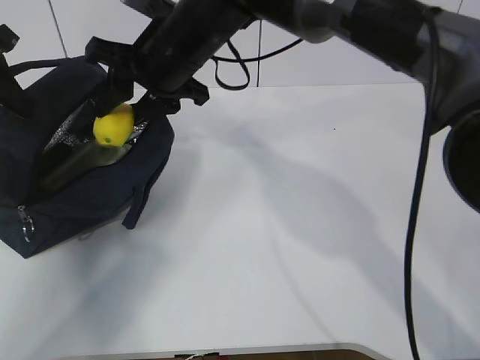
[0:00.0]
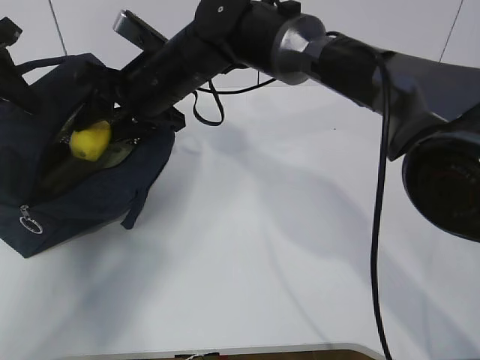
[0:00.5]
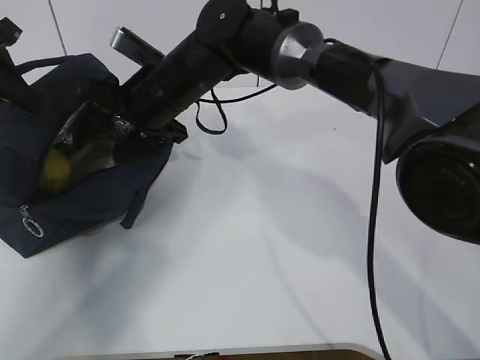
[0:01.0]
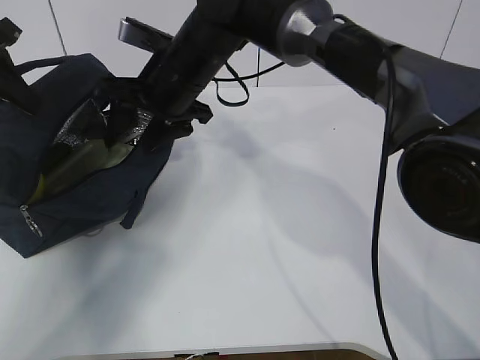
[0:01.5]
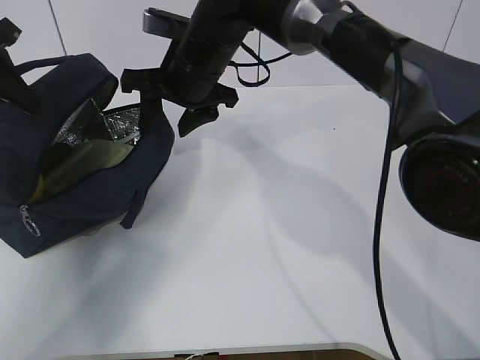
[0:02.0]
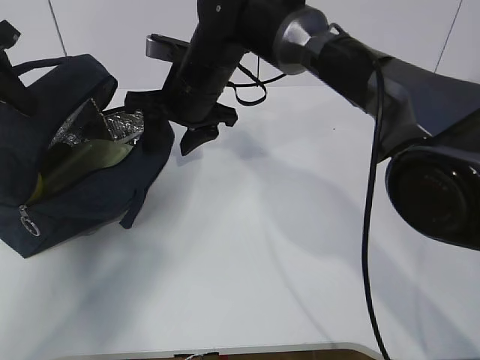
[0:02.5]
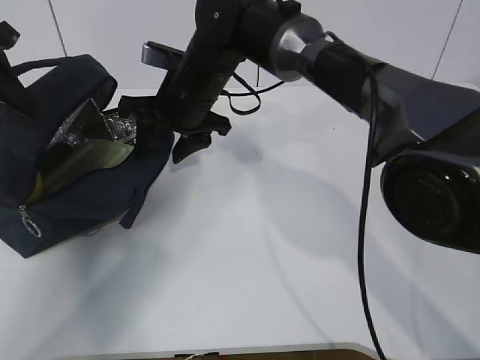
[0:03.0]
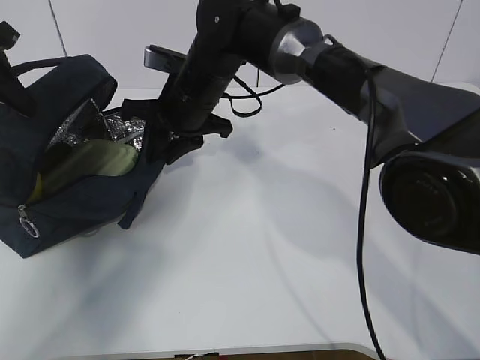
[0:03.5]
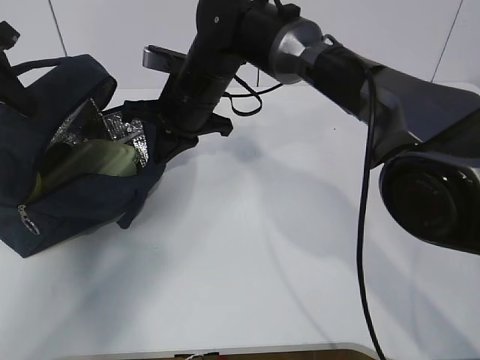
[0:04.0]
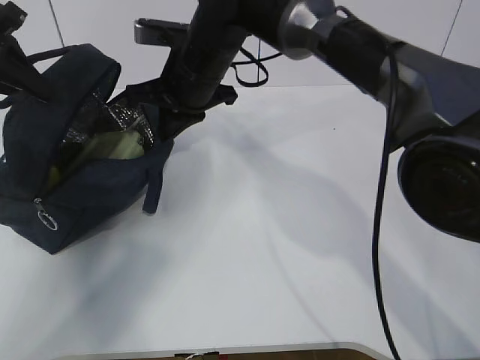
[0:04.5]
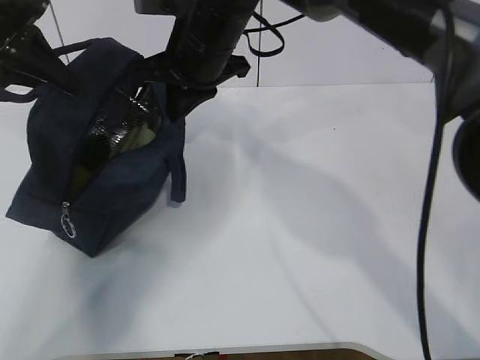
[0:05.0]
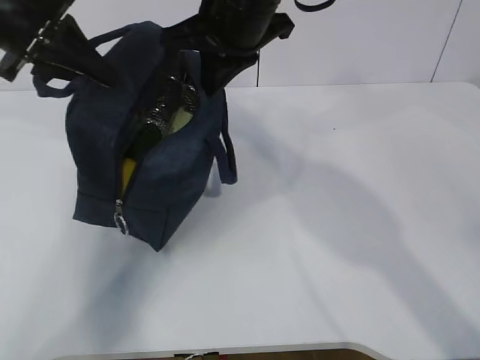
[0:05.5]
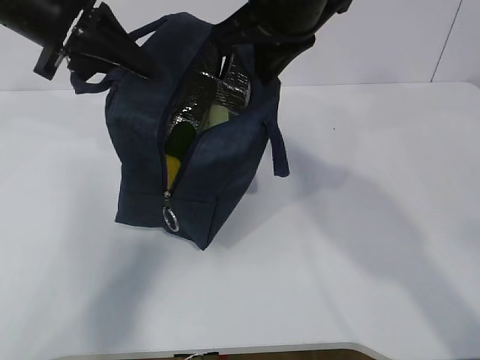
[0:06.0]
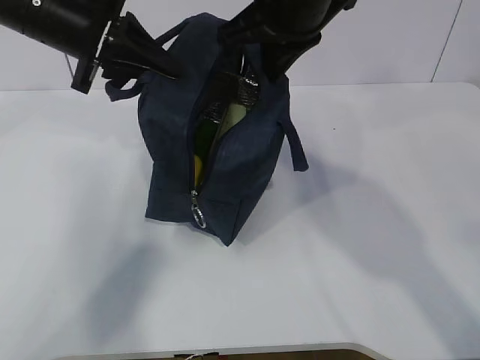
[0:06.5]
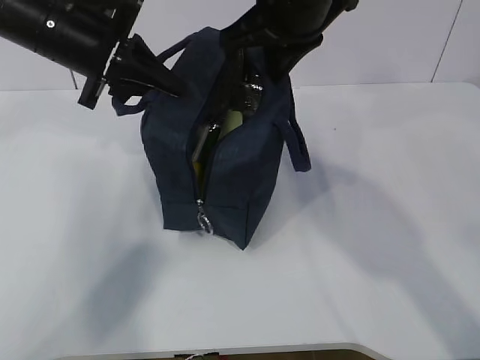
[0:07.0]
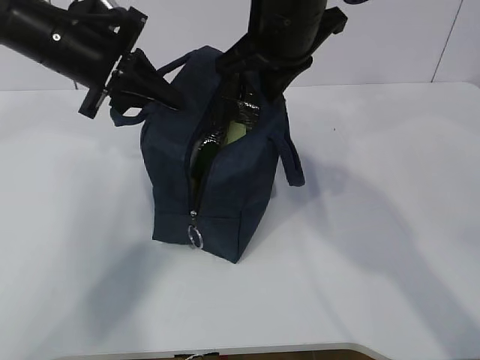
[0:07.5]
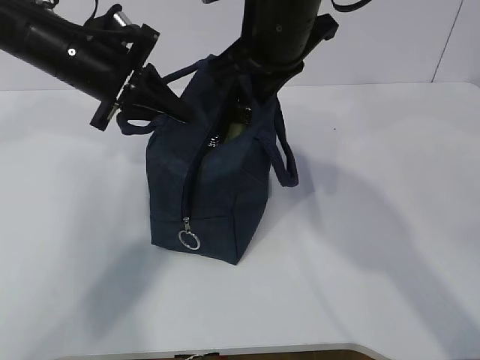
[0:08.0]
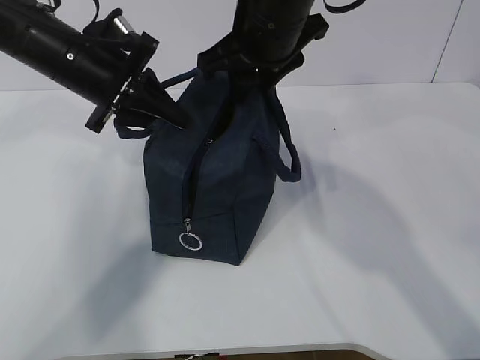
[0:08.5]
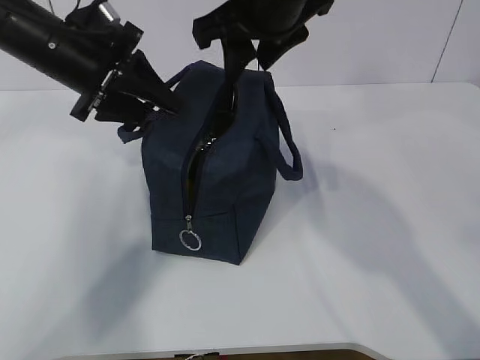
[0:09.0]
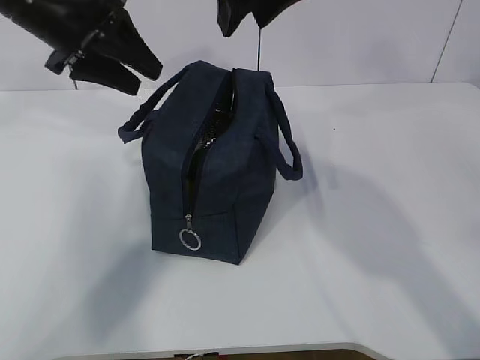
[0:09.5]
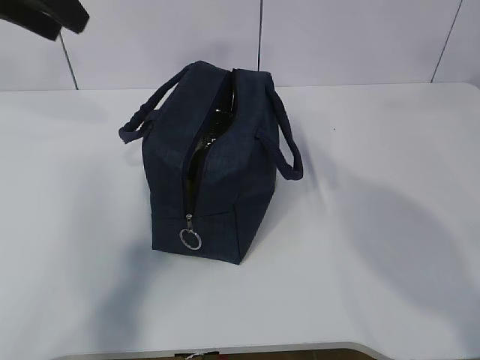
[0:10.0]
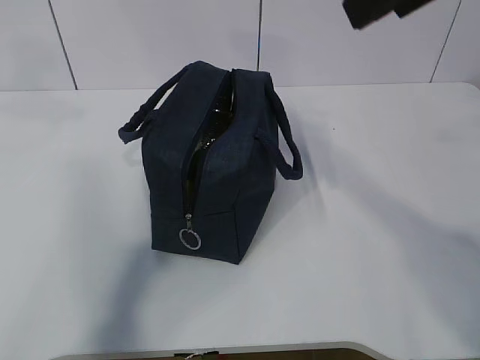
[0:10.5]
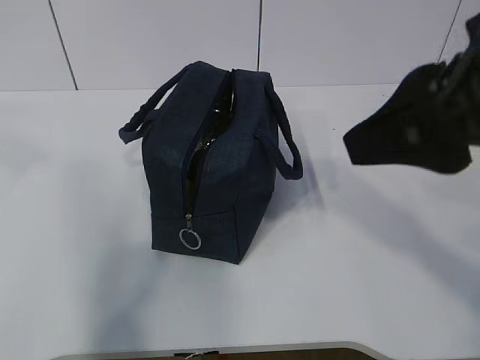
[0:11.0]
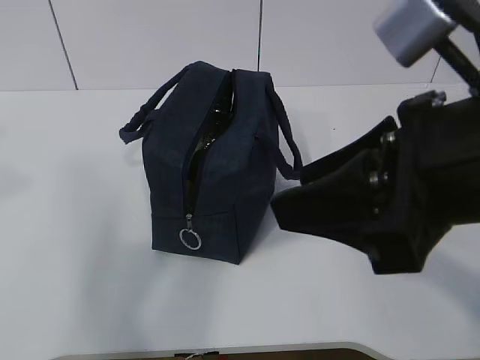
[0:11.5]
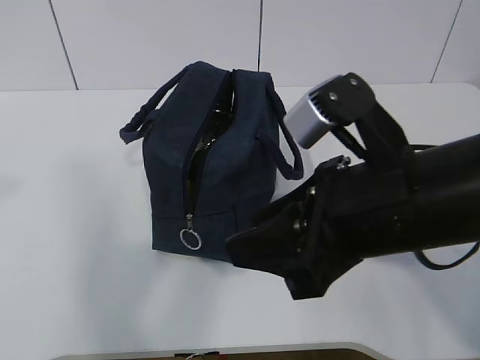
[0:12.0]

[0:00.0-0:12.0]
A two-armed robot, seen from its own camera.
Step, 0:00.0 to 0:02.5: Move the lunch bag to the right.
0:02.0 to 0:04.0: The right gripper closes.
0:04.0 to 0:06.0: The right gripper travels upward, to the right and backward by approximately 20 cm; the left gripper heads to the right, covering approximately 10 cm.
0:06.0 to 0:08.0: The left gripper moves downward, approximately 10 cm.
0:08.0 to 0:10.0: The left gripper is displaced upward and to the left by roughly 15 cm, and opens its fingers. Meanwhile the right gripper shifts some 15 cm upward and backward, and opens.
0:10.0 to 0:12.0: The right gripper is displaced downward and backward by about 20 cm. Meanwhile the left gripper travels backward by approximately 25 cm.

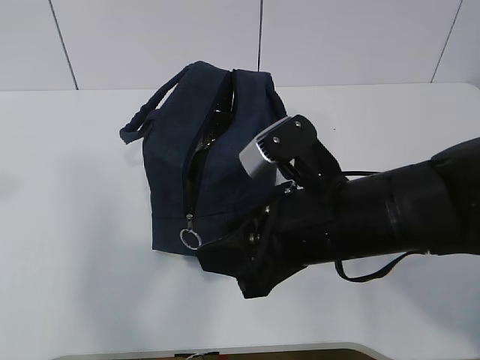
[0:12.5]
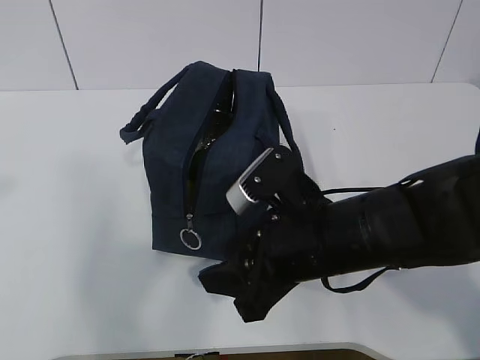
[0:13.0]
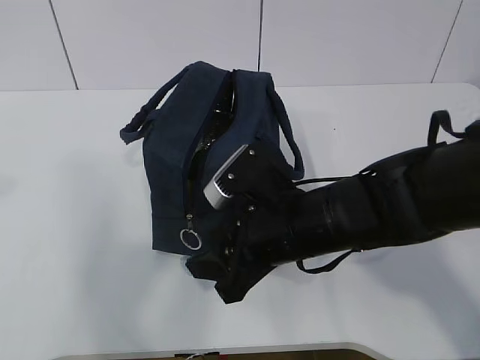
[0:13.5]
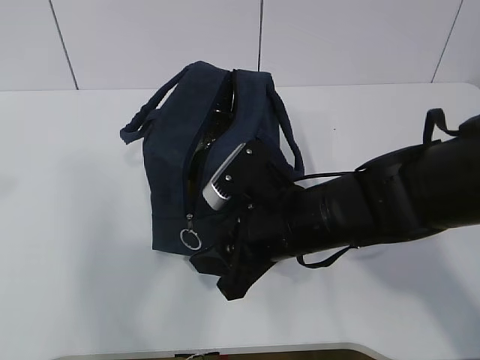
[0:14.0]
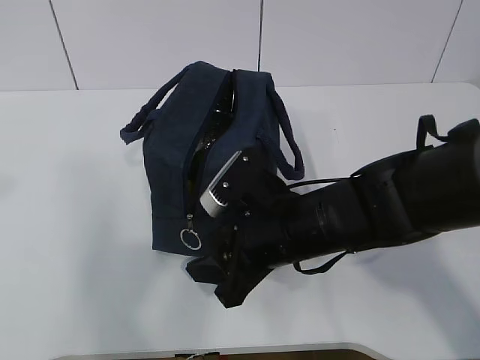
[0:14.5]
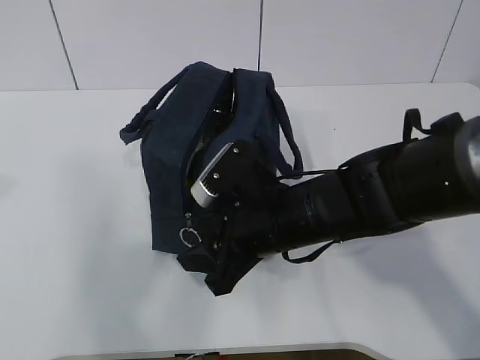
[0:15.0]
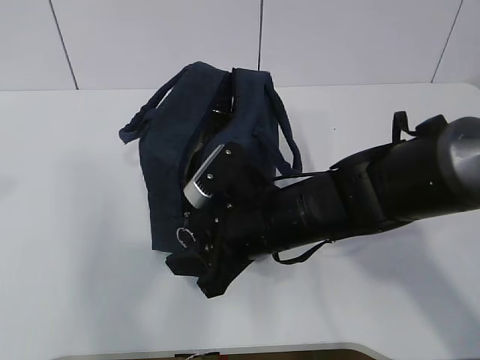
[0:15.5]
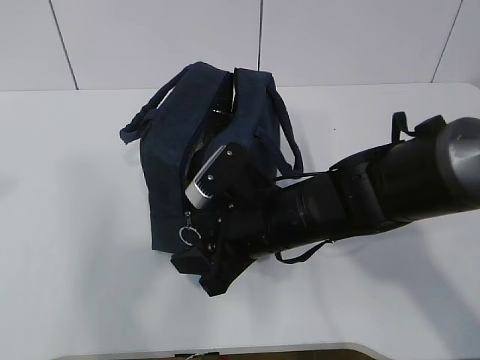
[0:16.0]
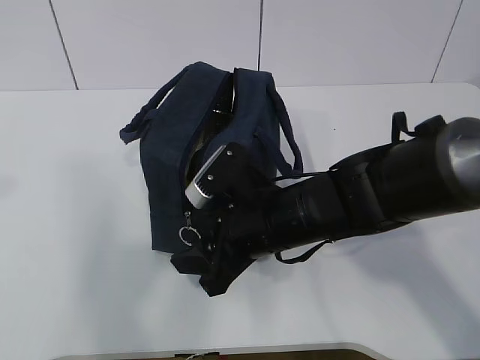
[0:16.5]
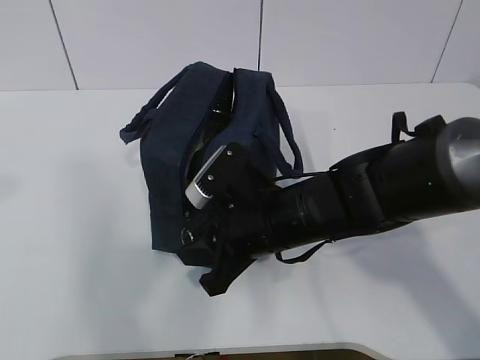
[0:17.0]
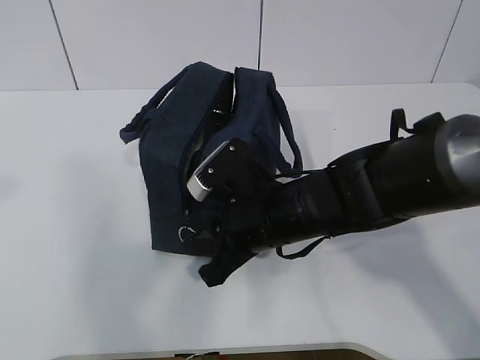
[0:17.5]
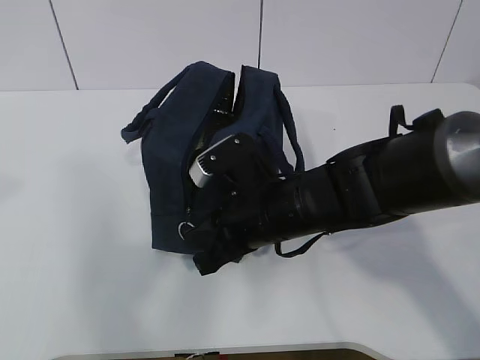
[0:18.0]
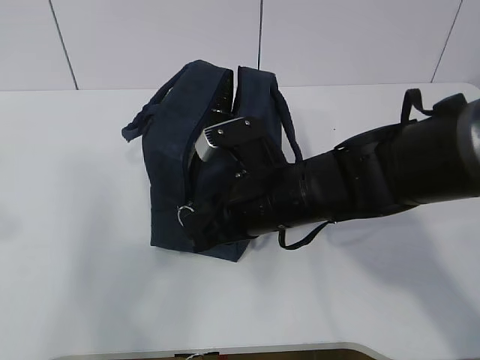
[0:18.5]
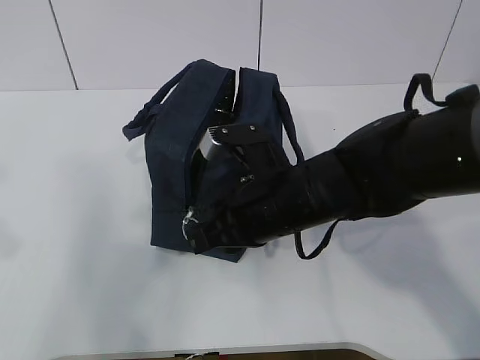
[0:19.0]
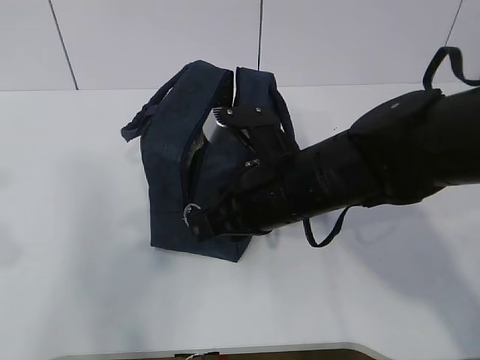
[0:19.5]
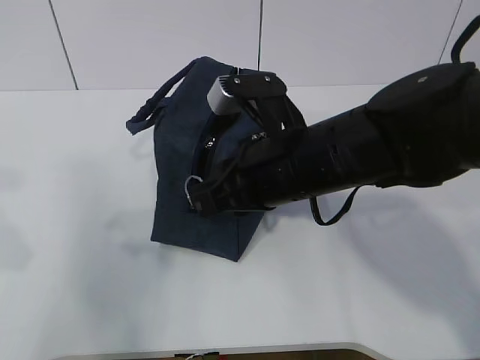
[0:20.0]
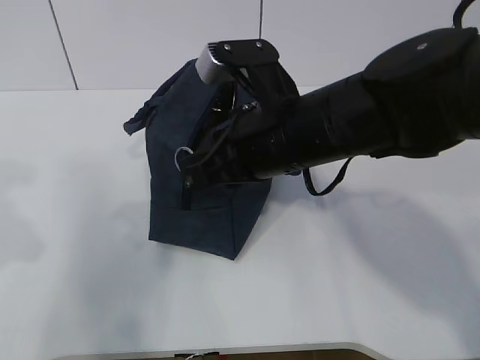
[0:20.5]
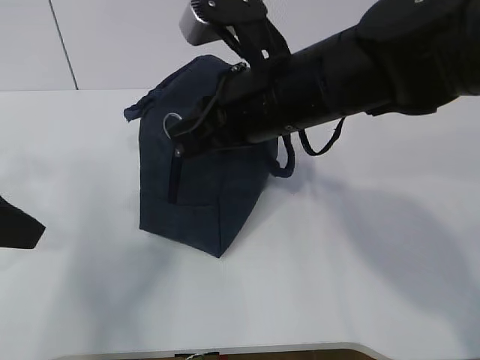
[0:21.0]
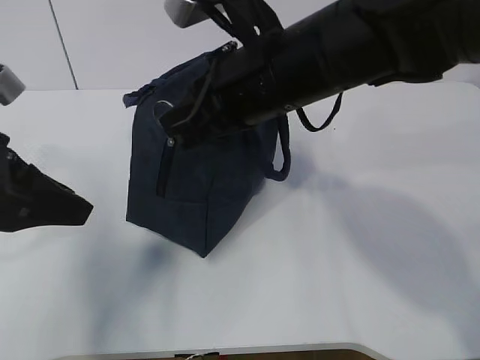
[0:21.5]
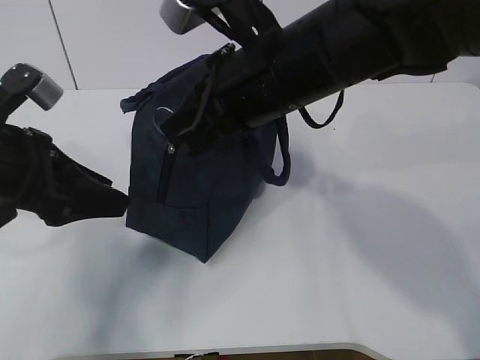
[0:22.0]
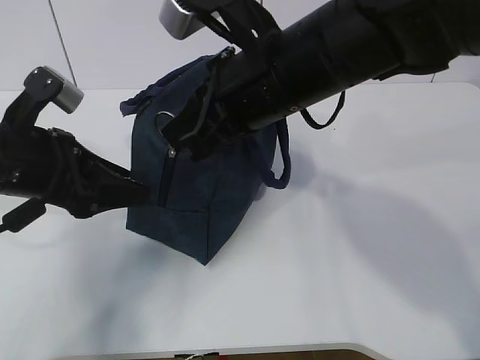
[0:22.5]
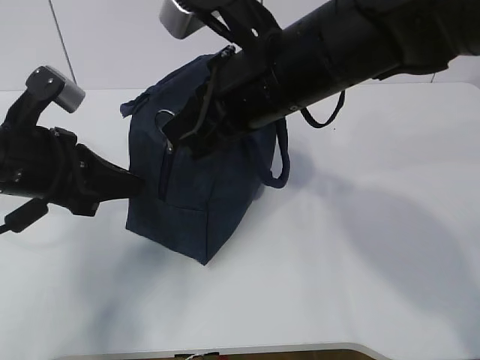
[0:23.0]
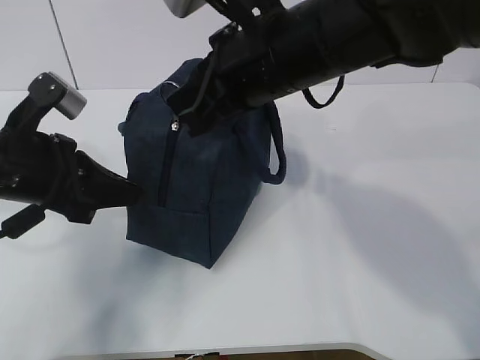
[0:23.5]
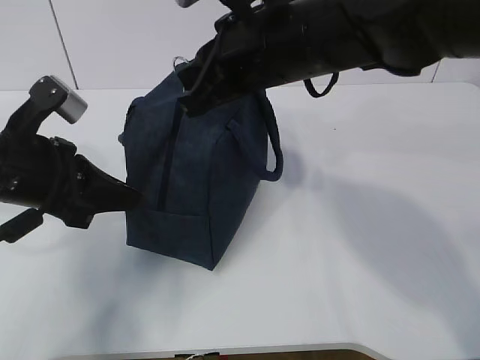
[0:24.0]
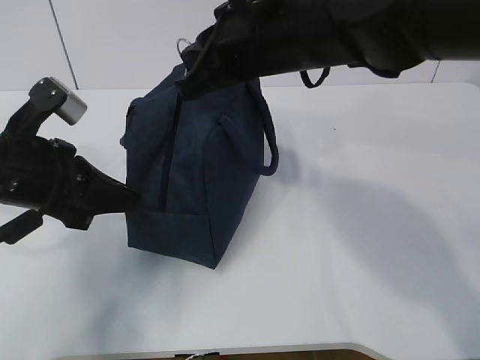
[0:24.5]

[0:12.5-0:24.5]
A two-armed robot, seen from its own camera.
0:12.5 to 0:14.5: The right gripper heads downward, covering roughly 5 cm.
0:14.5 to 0:16.5: The grippers move only a little.
0:16.5 to 0:18.5: The right gripper closes, while the left gripper travels downward by about 5 cm.
0:18.5 to 0:20.5: The right gripper travels upward by approximately 10 cm. The left gripper shifts some 10 cm downward and forward.
0:20.5 to 0:22.5: The left gripper heads forward, downward and to the right, covering approximately 15 cm, and opens, while the right gripper travels upward by approximately 5 cm.
0:22.5 to 0:24.5: The left gripper closes its fingers.

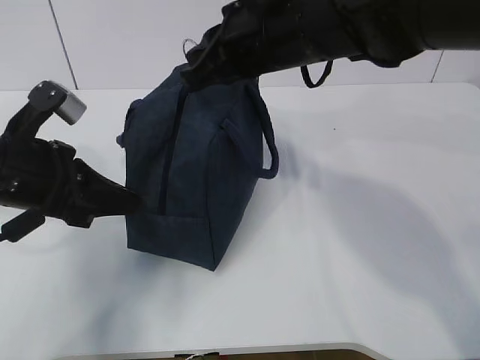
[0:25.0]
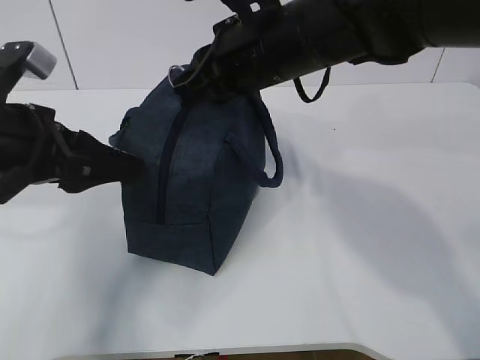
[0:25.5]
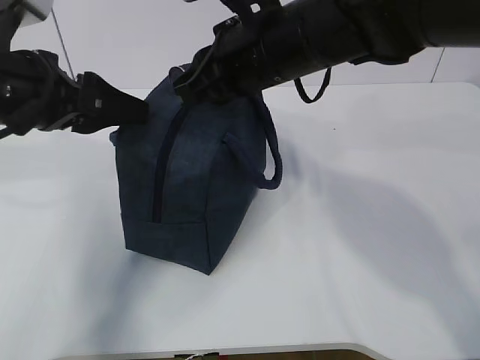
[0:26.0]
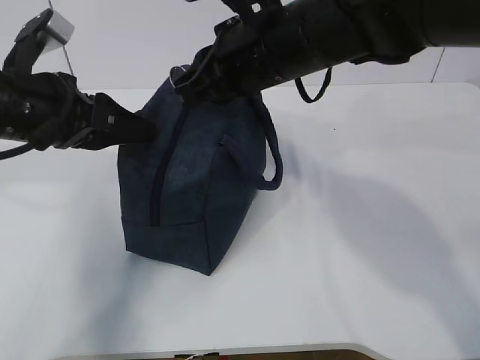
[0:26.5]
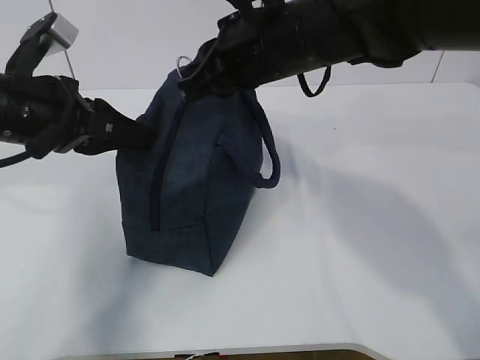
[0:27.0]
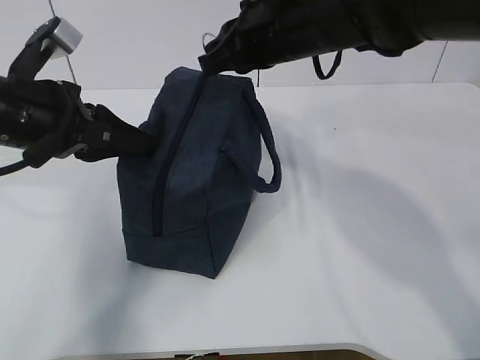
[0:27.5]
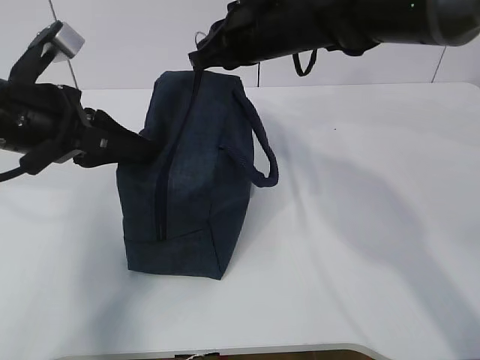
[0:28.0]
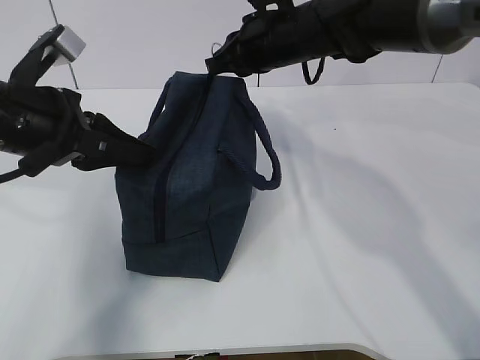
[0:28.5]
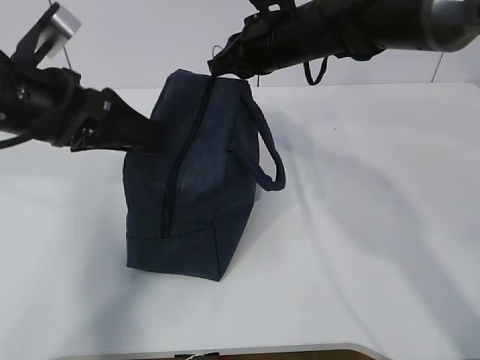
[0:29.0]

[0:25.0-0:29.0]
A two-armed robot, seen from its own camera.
0:25.0 to 0:27.0: The left gripper ends up approximately 5 cm from where it was, and opens, then closes once more.
0:27.0 to 0:29.0: The left gripper opens up, while the right gripper is displaced forward by roughly 10 cm.
